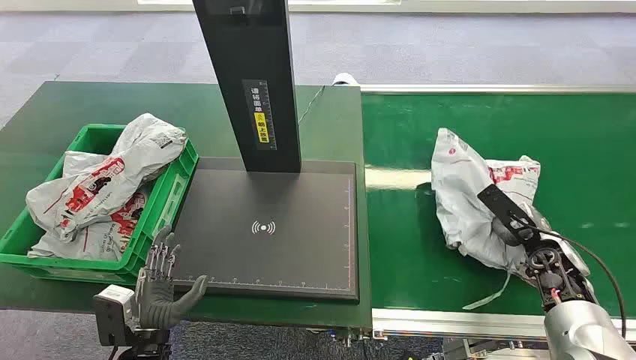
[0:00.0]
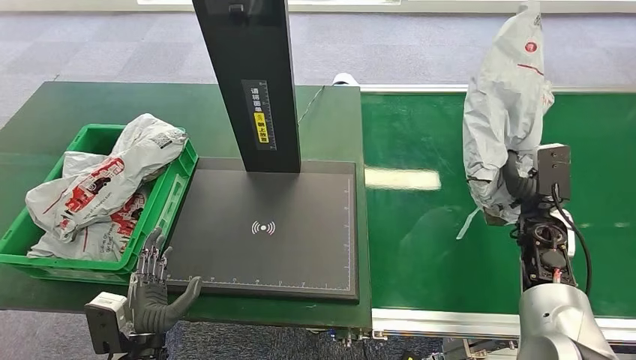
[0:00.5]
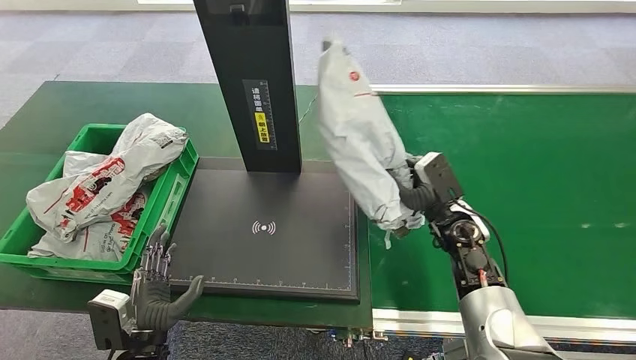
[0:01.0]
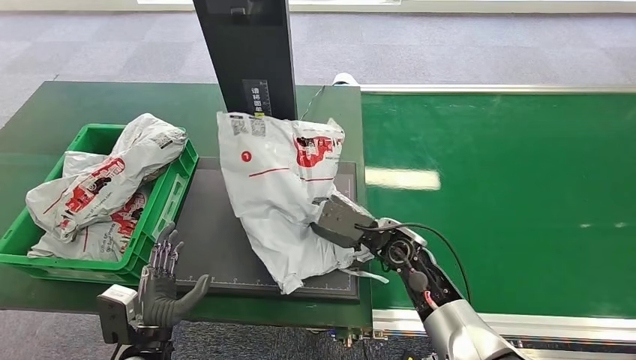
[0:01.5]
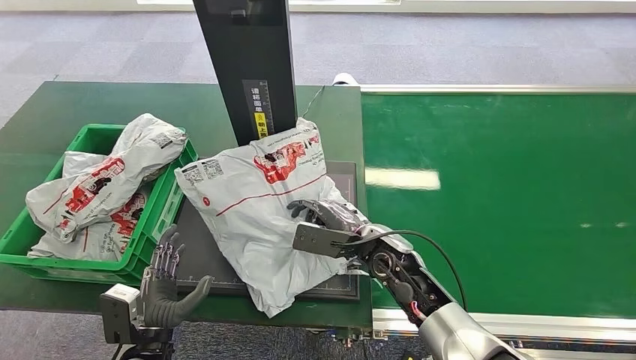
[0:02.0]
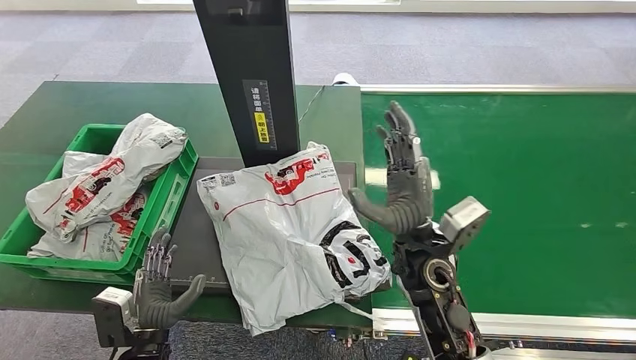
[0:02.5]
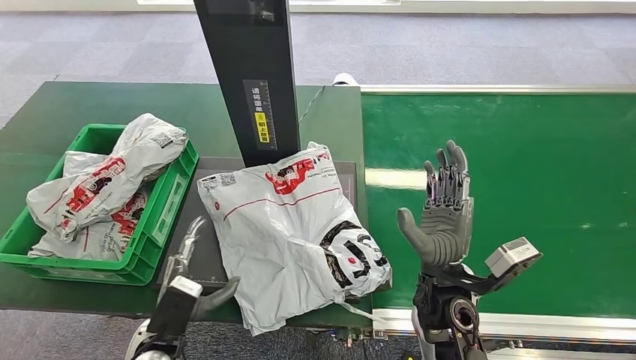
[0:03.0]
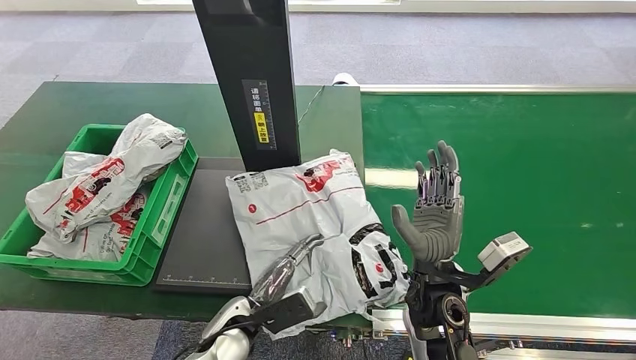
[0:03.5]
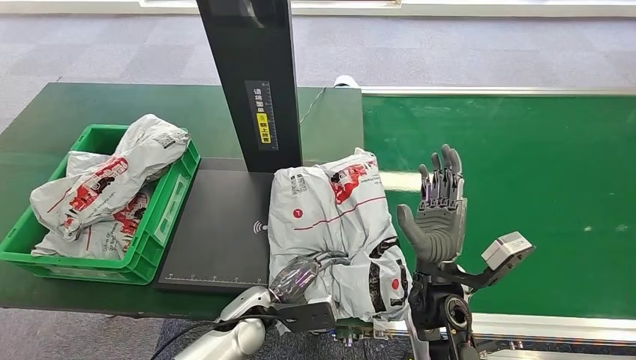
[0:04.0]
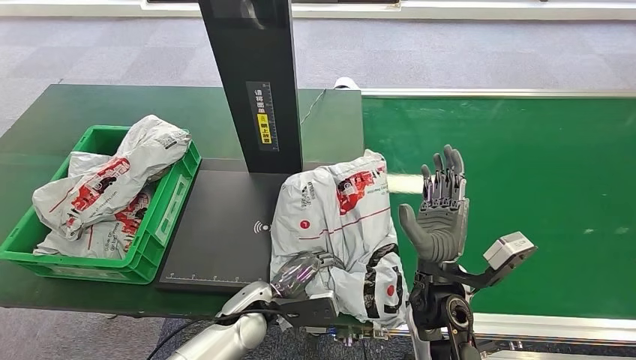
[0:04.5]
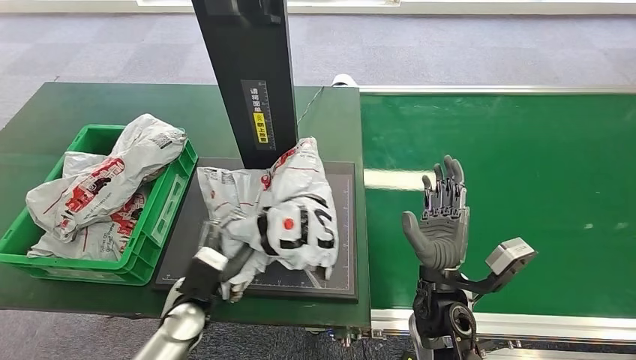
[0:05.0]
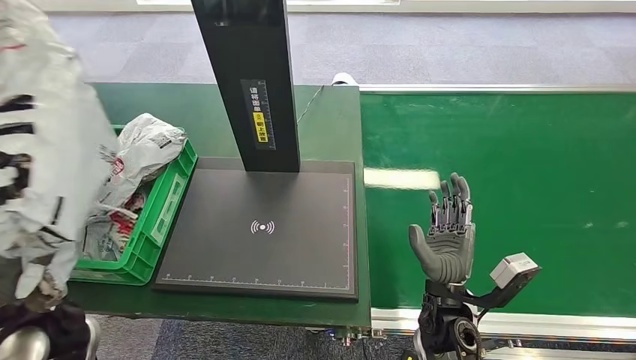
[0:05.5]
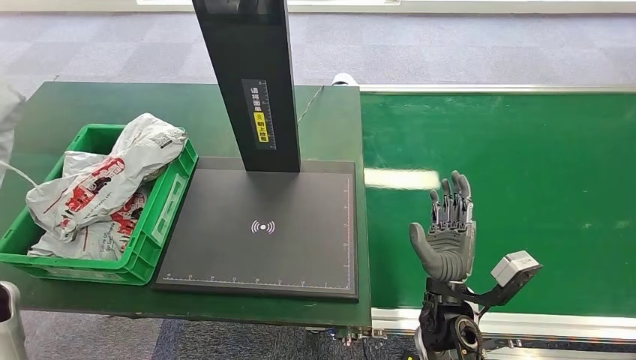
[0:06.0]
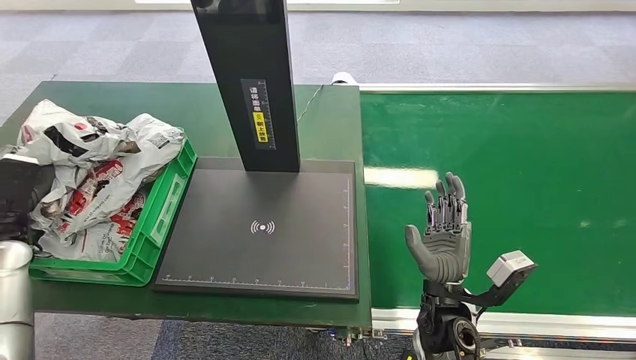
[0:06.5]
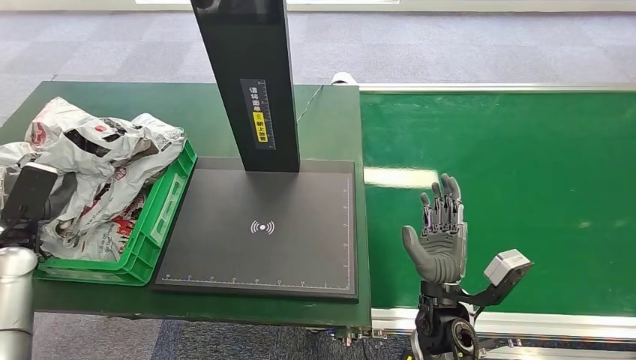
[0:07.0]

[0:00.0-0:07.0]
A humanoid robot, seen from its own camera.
0:02.0 to 0:03.5: The left hand heads to the right and forward, covering roughly 15 cm. Meanwhile the right hand heads backward, covering about 10 cm.
0:03.5 to 0:05.0: The left hand is displaced to the left by about 5 cm.
